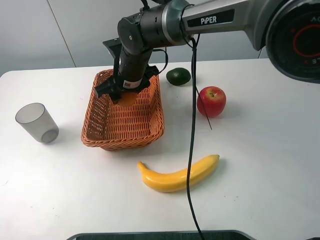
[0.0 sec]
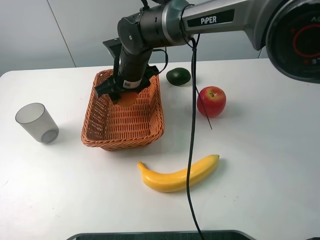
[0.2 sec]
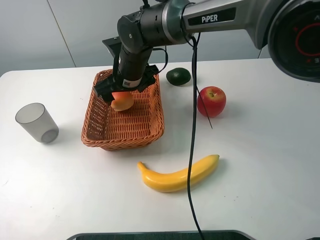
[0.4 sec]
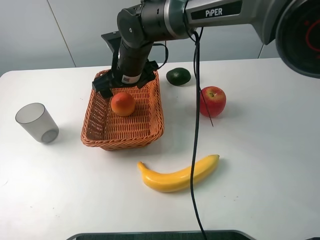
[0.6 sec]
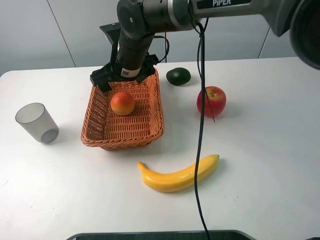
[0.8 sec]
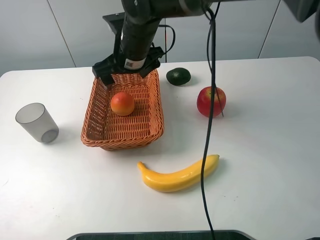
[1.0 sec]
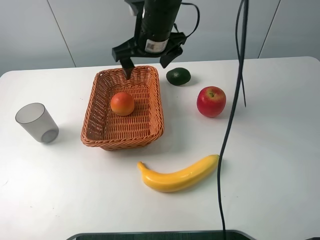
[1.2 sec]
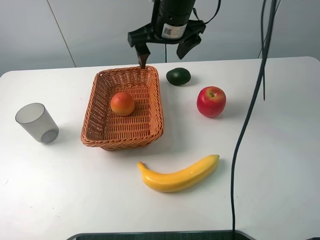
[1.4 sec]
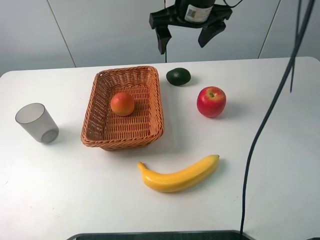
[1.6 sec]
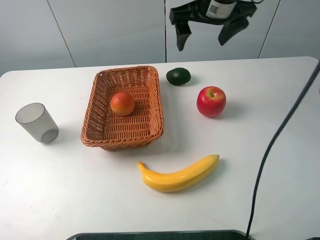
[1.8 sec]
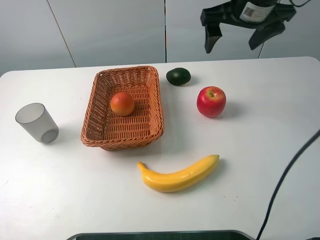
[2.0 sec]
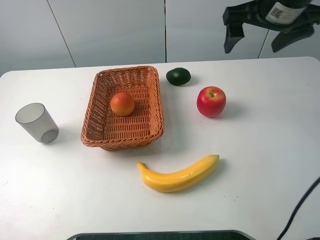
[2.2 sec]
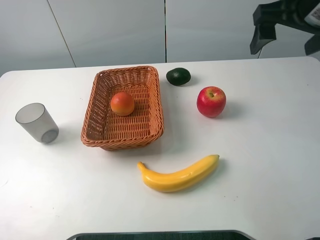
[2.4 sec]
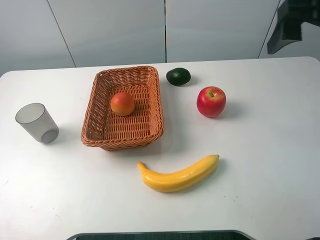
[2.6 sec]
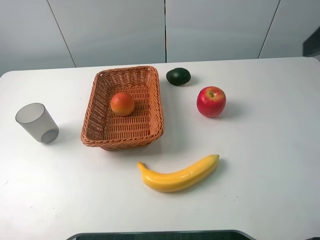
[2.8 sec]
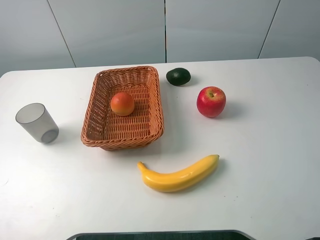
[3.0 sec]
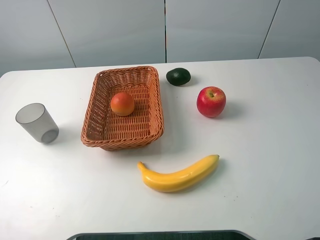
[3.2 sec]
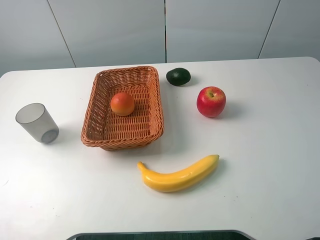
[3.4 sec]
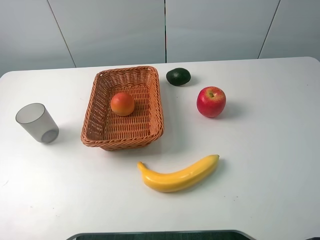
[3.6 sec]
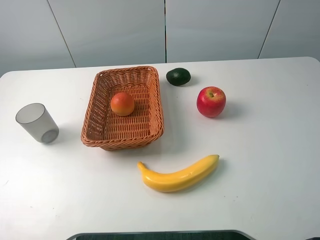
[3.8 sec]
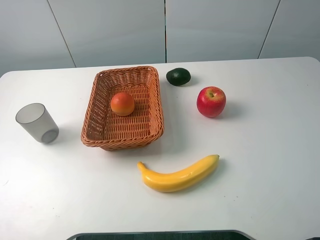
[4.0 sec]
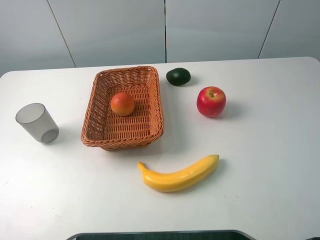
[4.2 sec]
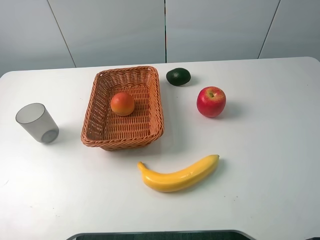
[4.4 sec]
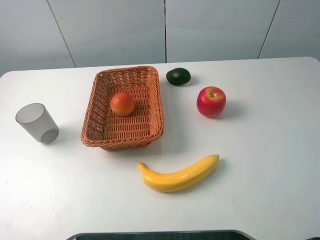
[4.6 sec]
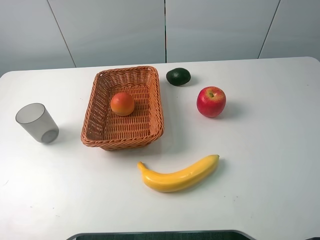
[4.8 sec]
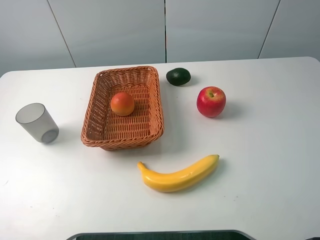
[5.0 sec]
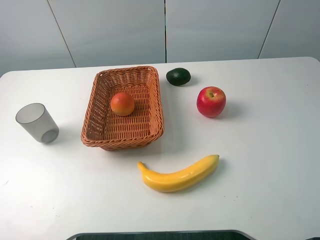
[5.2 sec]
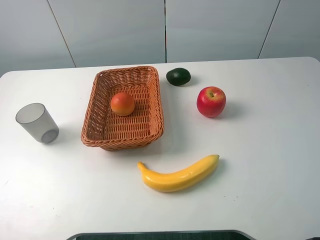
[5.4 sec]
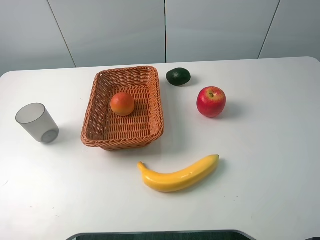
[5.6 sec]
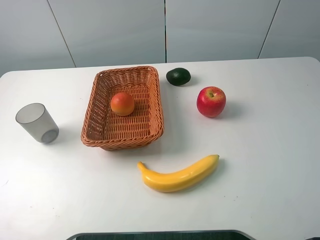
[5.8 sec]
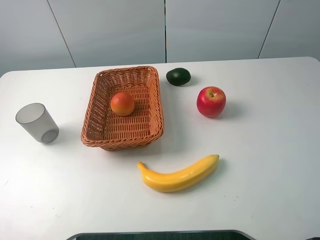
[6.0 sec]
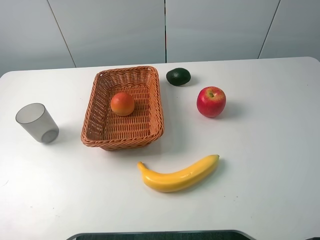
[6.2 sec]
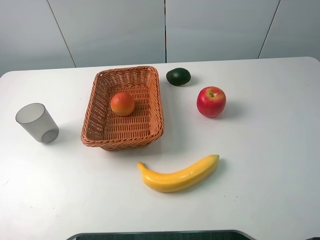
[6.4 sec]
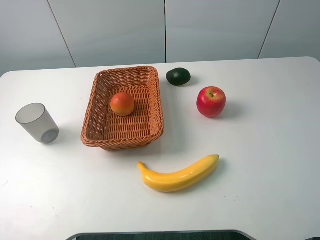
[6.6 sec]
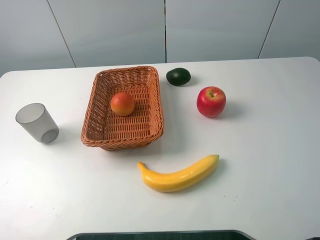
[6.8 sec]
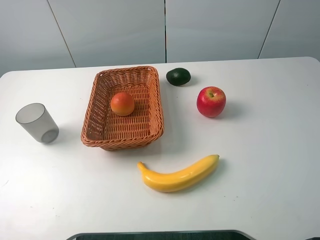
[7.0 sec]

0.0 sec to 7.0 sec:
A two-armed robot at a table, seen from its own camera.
0.0 sec to 1.4 sec: The right gripper shifts roughly 15 cm upward and to the right, and opens.
1.4 sec to 2.8 sec: The right gripper is displaced to the right, backward and upward by about 35 cm.
5.6 sec to 7.0 sec: Both grippers stay about where they are.
